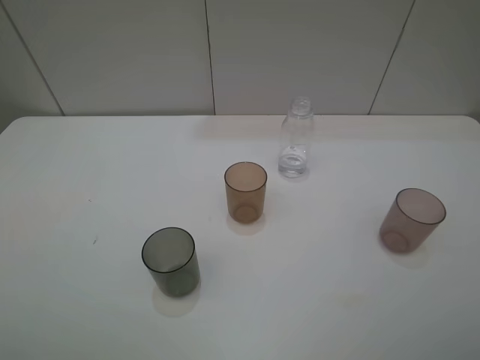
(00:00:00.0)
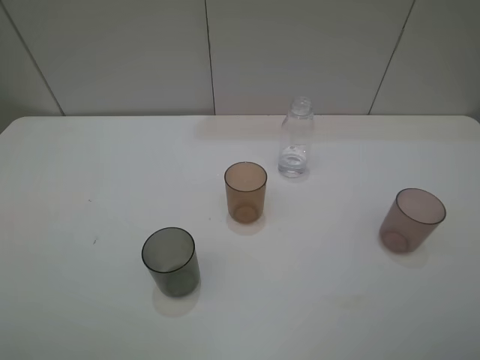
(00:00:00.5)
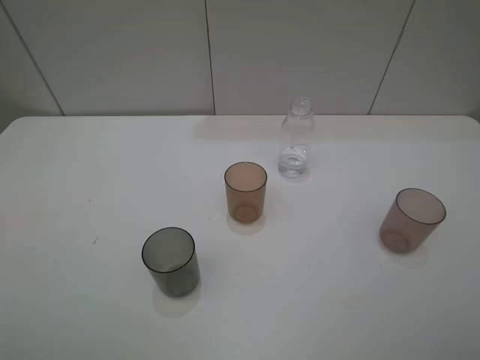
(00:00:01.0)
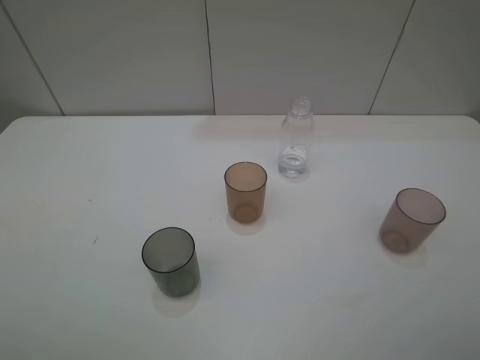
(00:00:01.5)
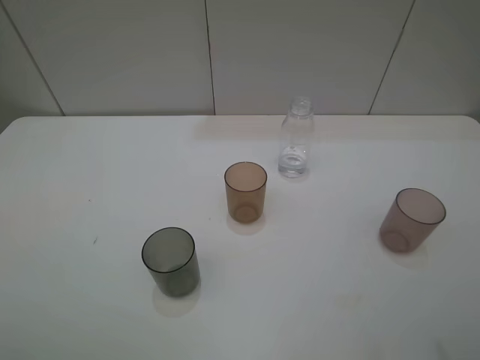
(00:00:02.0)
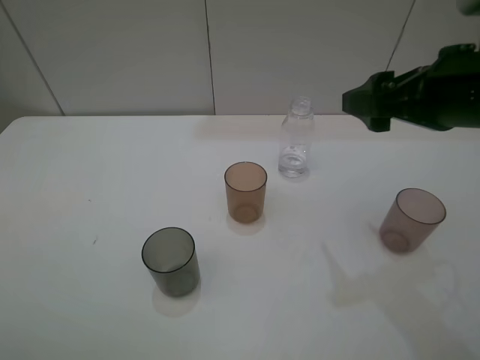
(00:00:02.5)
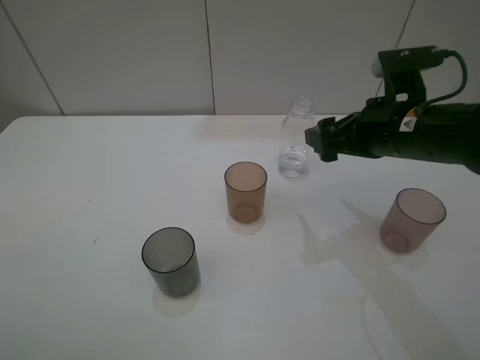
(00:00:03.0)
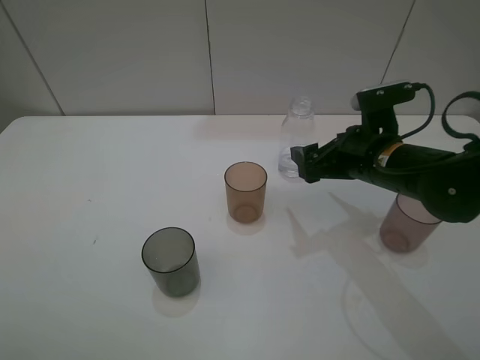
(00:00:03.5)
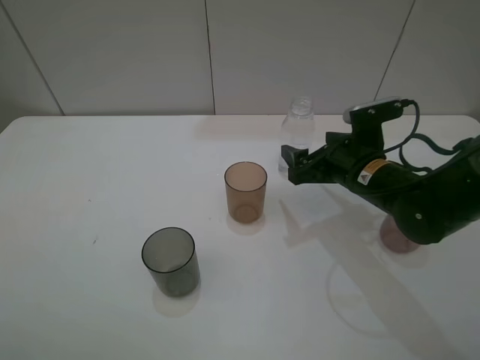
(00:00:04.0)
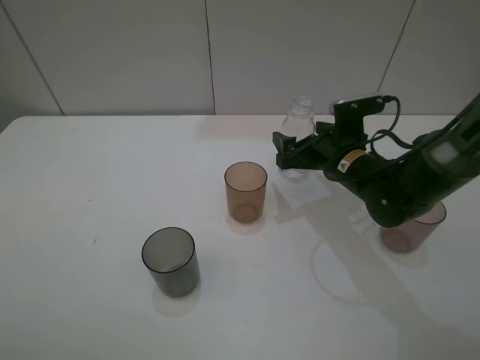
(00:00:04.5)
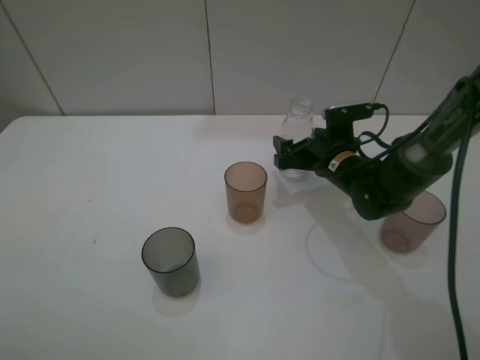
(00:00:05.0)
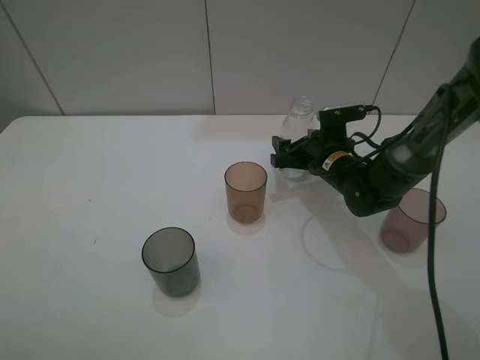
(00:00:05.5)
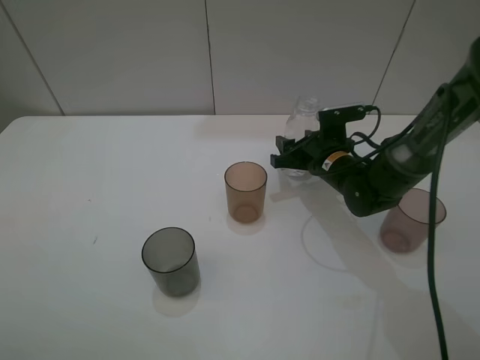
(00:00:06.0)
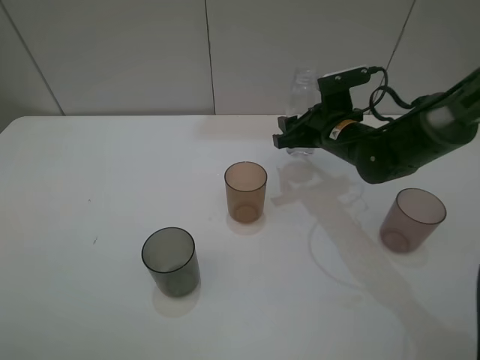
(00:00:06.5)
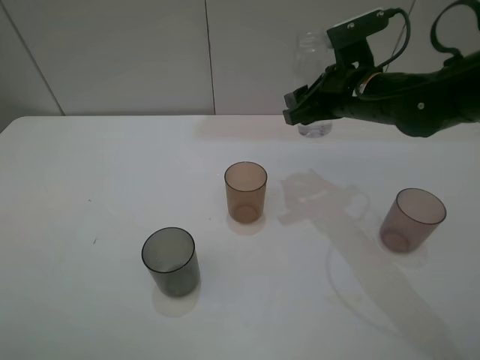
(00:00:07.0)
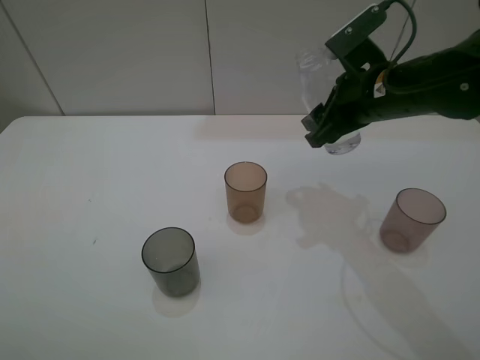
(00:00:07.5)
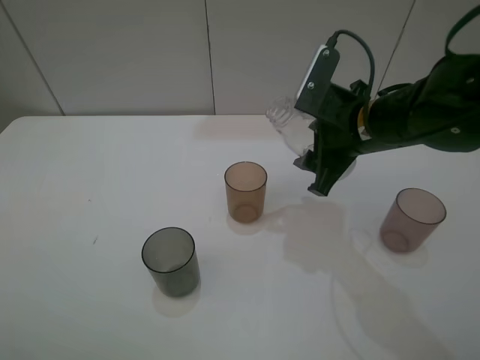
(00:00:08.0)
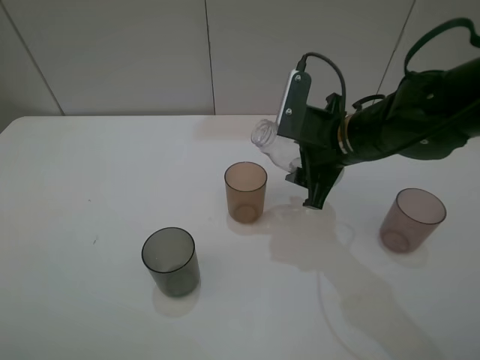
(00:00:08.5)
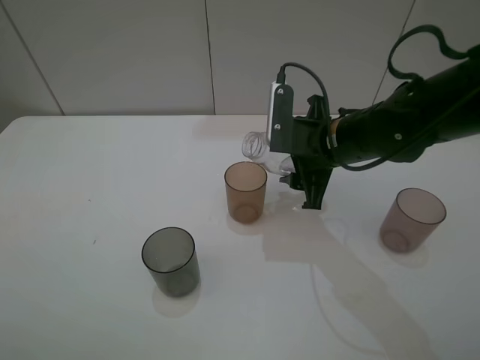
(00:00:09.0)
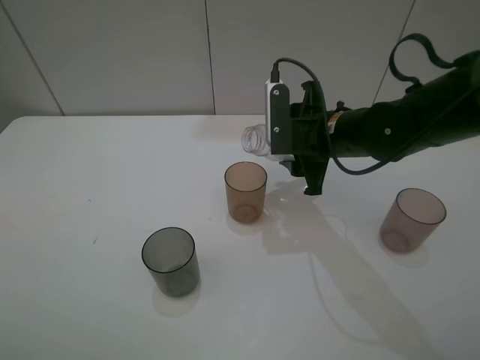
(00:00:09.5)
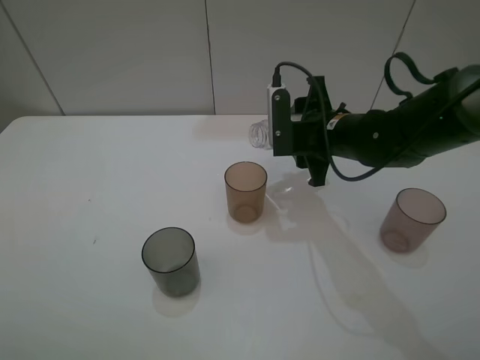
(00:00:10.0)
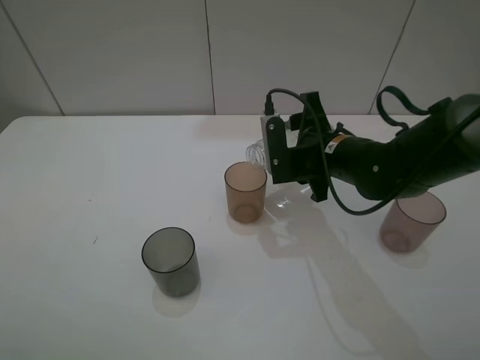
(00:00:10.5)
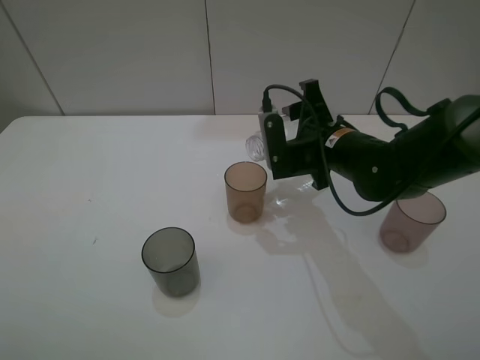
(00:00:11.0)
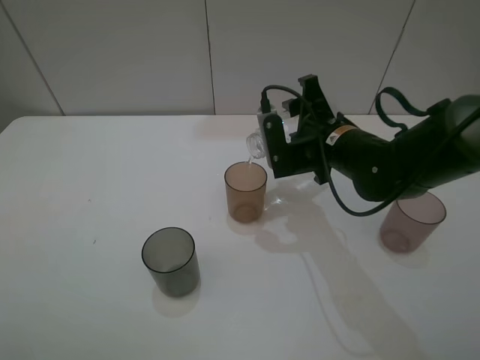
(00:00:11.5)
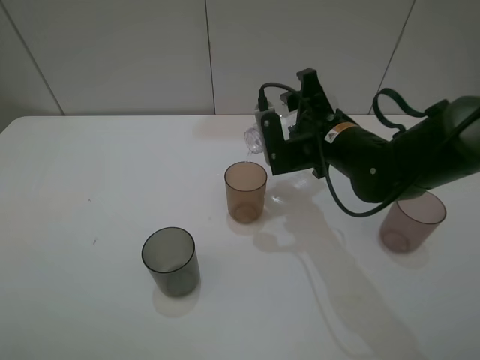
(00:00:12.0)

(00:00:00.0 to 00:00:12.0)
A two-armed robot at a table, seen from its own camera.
Task of the whole recording: pick up the bottle filled with water and pour water into the middle cup of the three cups.
Step, 00:00:00.0 - 00:00:05.5: Grasp the transparent bottle with the right gripper.
Step, 00:00:06.0 - 00:00:11.0: Pour water from transparent bottle tobrown cup with the right gripper.
00:00:02.0 - 00:00:04.0: The right gripper heads downward, forward and to the left, covering roughly 30 cm.
00:00:04.0 - 00:00:06.0: The right gripper is displaced forward and downward by approximately 10 cm, and closes up.
00:00:06.0 - 00:00:08.0: The right gripper goes approximately 15 cm upward and backward.
00:00:08.0 - 00:00:10.0: The right gripper moves some 5 cm.

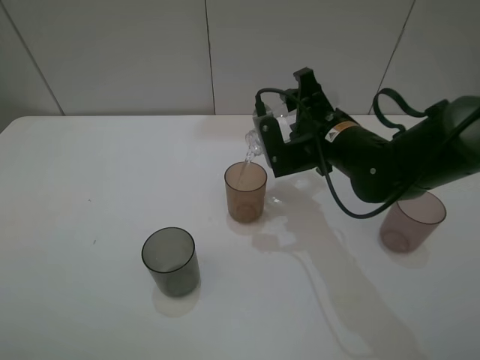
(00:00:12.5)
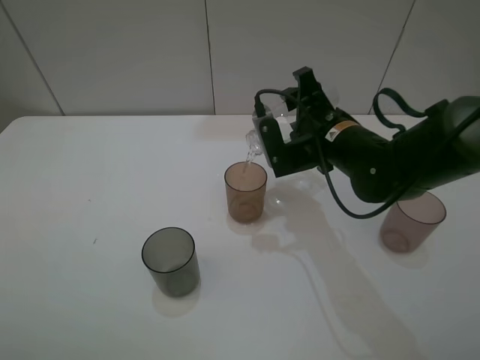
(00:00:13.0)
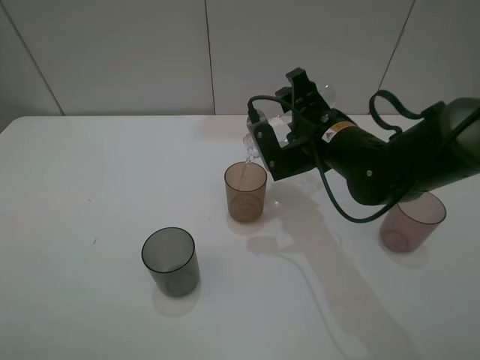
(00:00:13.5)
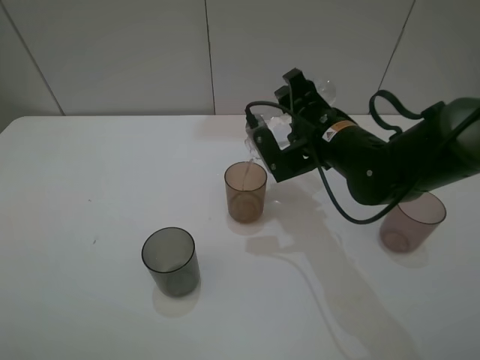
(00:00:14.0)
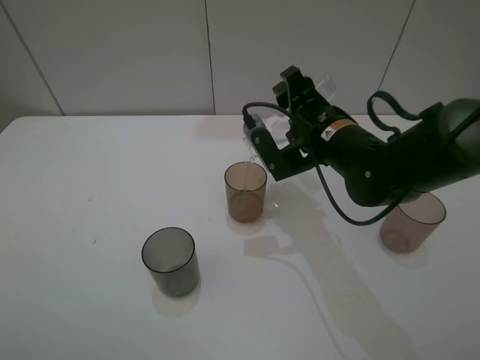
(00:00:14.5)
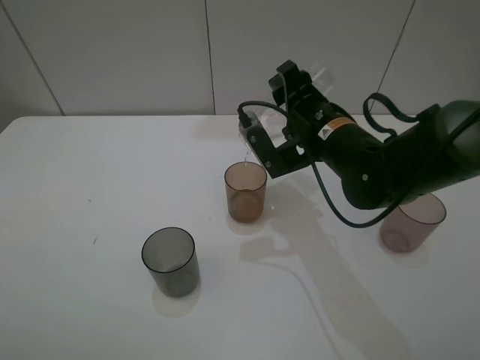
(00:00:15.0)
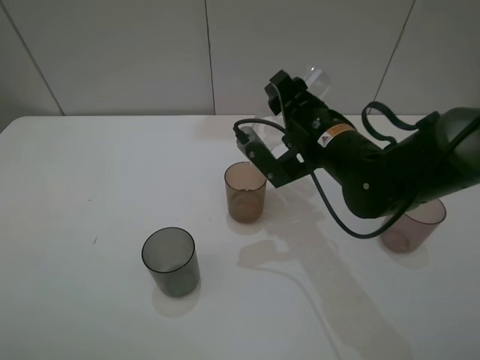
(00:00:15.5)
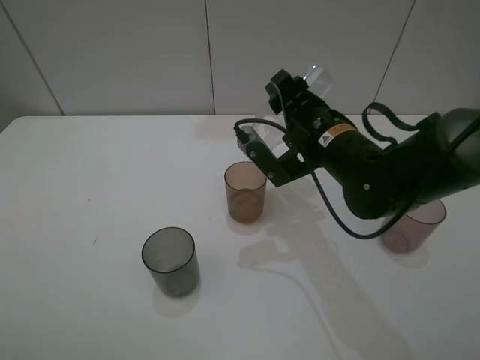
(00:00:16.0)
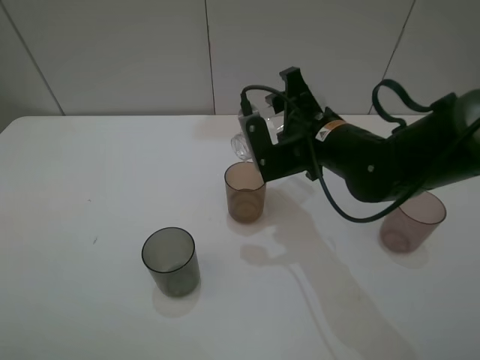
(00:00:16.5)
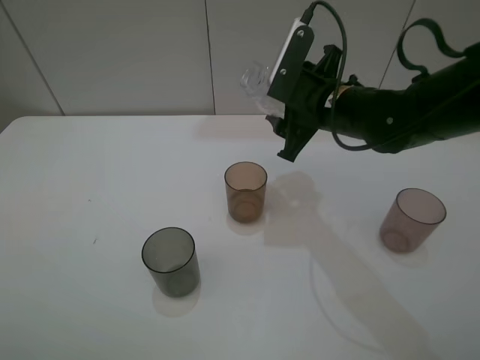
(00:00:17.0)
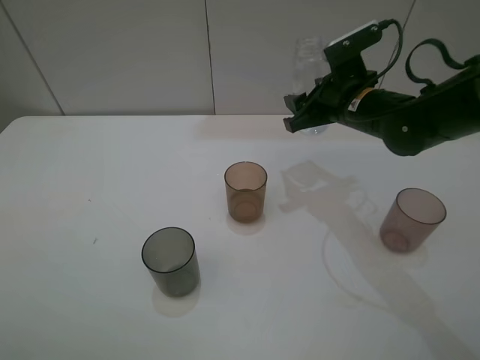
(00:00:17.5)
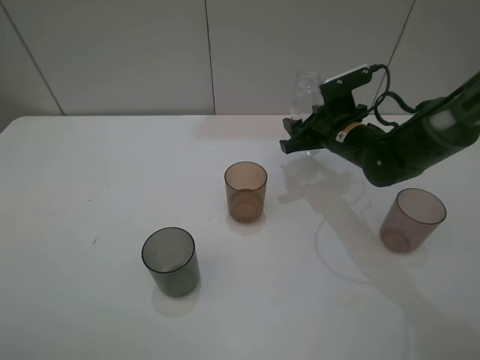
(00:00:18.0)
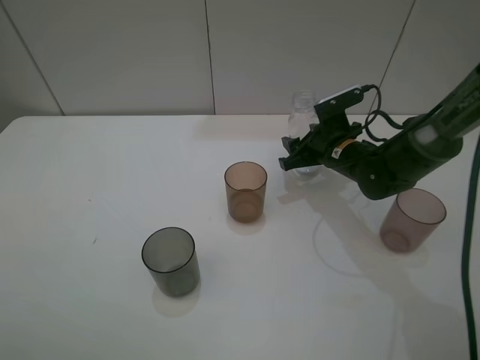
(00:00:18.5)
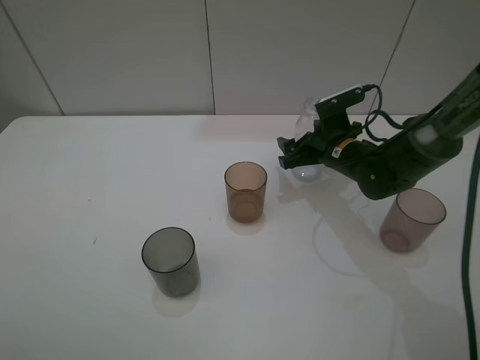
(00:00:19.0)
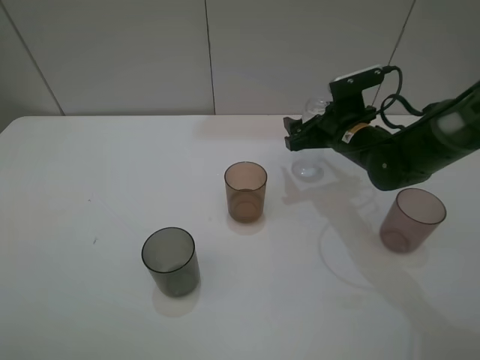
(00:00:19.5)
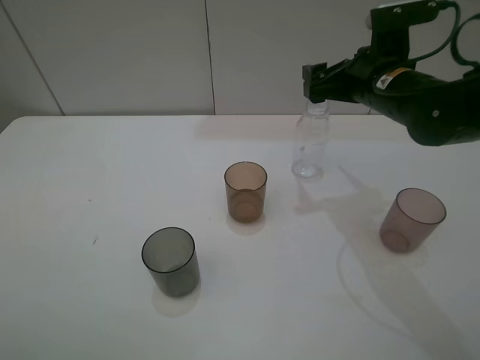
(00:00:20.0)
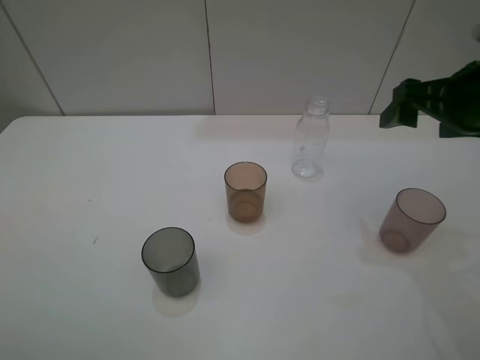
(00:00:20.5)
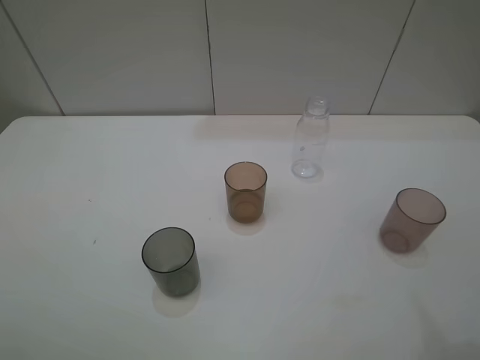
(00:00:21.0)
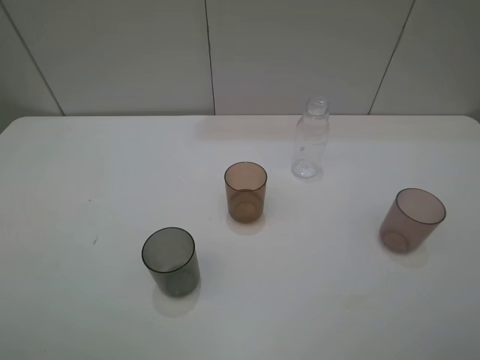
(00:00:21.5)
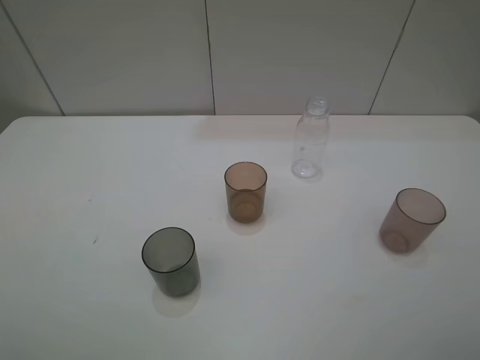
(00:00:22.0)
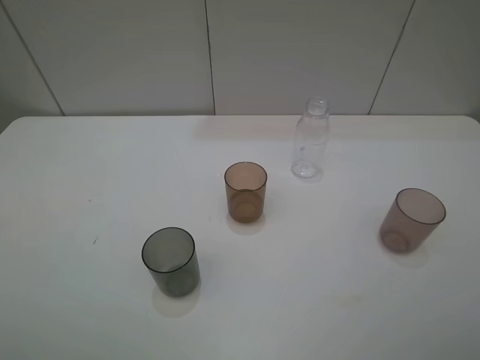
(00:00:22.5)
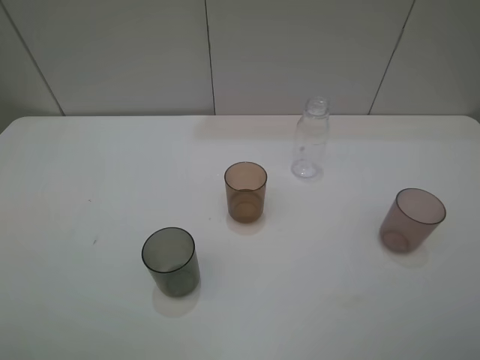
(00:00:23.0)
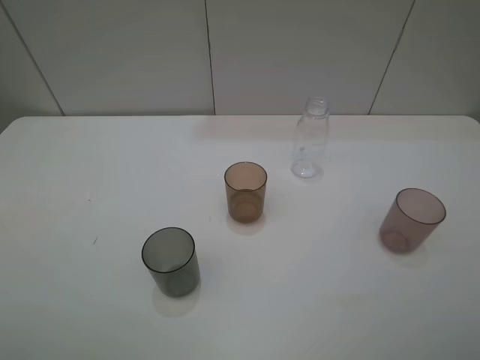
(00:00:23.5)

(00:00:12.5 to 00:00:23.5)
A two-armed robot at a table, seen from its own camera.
Task of the whole recording: pick up the bottle filled with water and pour water into the middle cup of the three cups.
Step, 00:00:12.5 - 00:00:20.0: Place the transparent bottle with the right gripper.
00:00:12.5 - 00:00:16.0: There are only small adjustments of the grippers.
00:00:16.0 - 00:00:18.0: The right gripper shifts approximately 10 cm forward, to the right and downward.
00:00:18.0 - 00:00:20.0: The right gripper moves upward, some 10 cm, and opens.
00:00:20.0 - 00:00:21.5: The right gripper travels backward and upward by some 35 cm.

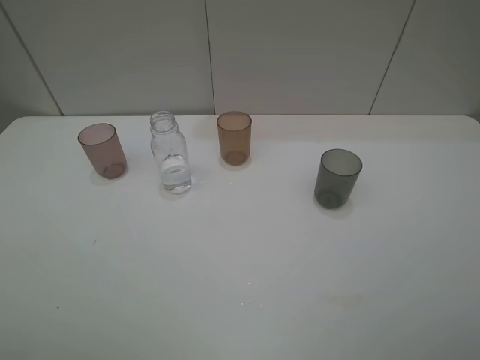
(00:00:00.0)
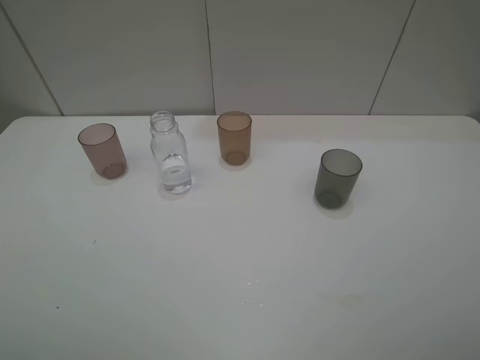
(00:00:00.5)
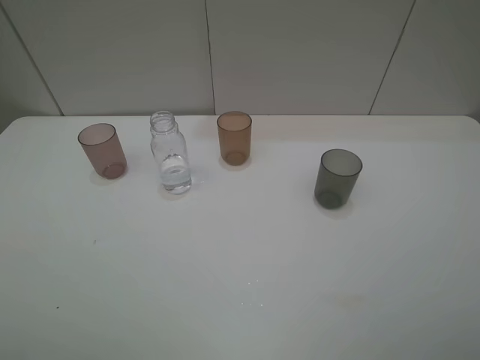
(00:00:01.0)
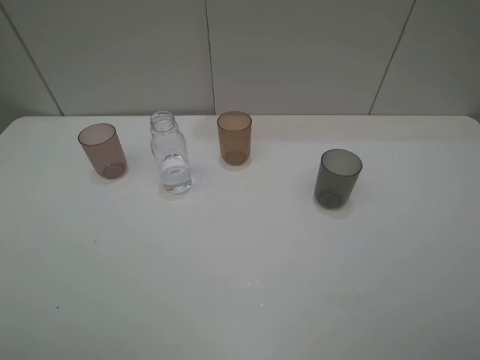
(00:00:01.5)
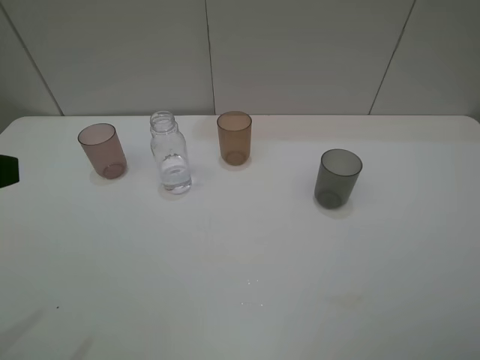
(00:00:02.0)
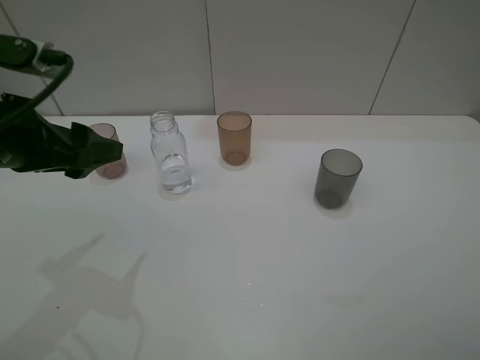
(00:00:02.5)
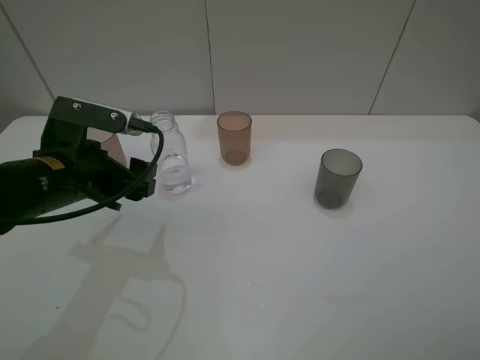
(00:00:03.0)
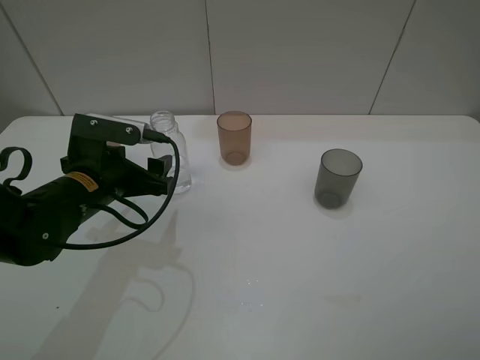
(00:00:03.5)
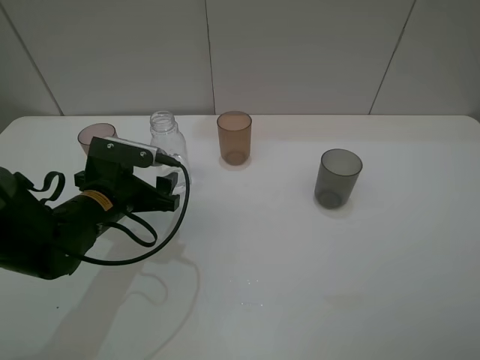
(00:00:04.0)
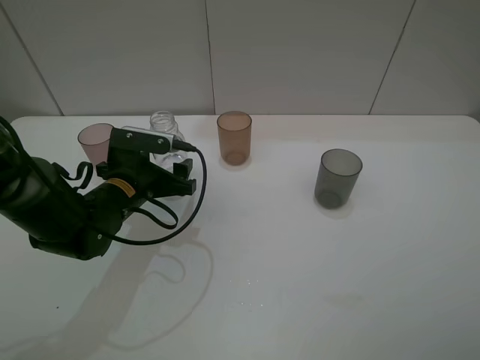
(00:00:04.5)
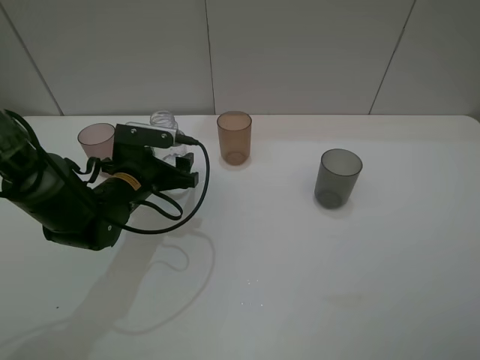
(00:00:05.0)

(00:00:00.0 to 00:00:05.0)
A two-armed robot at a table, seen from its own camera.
Task of the whole recording: pick up the bottle filled with water and pour water into the middle cup of the three cups.
00:00:00.0 - 00:00:02.5: The left gripper heads forward, covering about 20 cm.
00:00:02.5 - 00:00:05.0: The left gripper travels downward, forward and to the right by roughly 20 cm.
